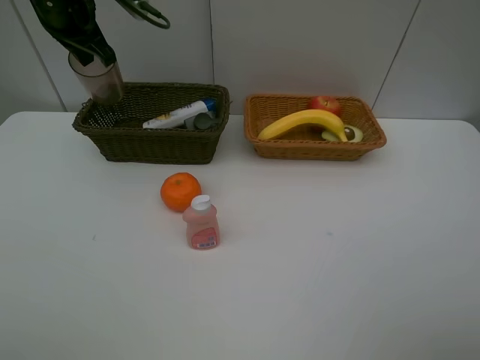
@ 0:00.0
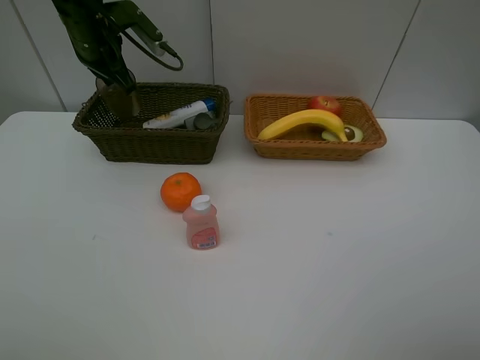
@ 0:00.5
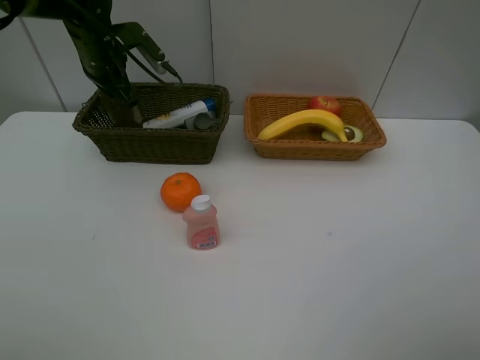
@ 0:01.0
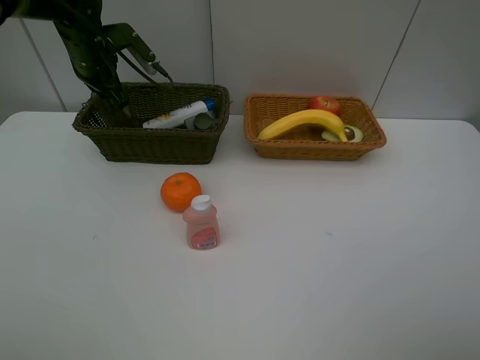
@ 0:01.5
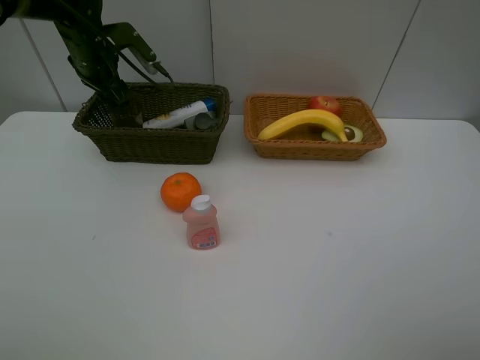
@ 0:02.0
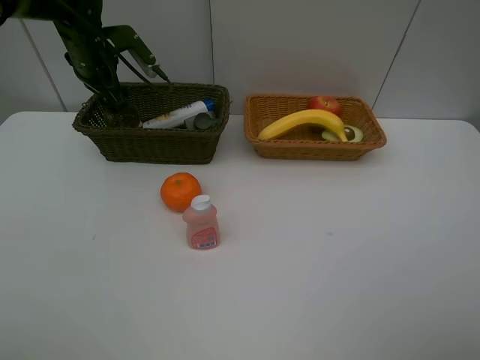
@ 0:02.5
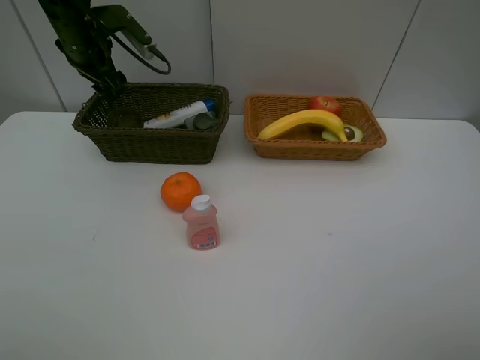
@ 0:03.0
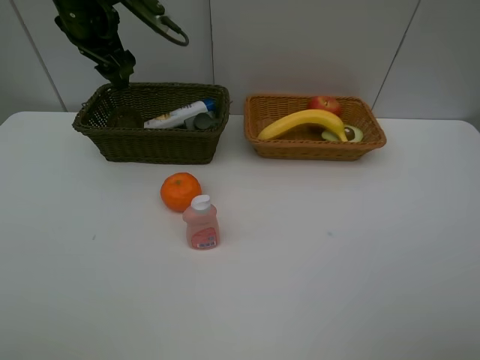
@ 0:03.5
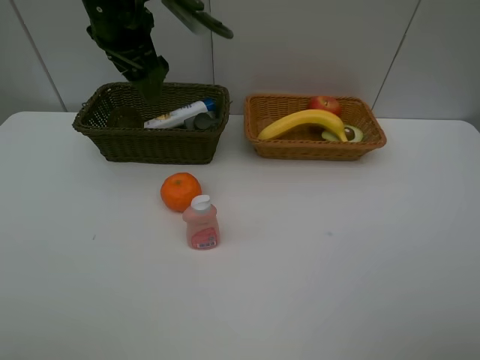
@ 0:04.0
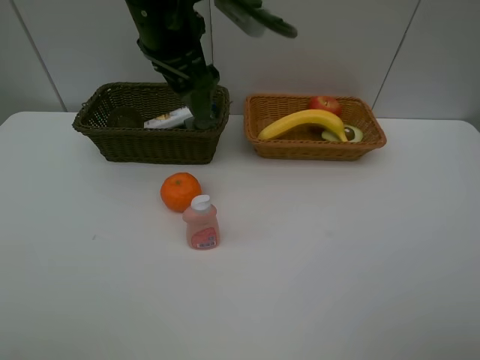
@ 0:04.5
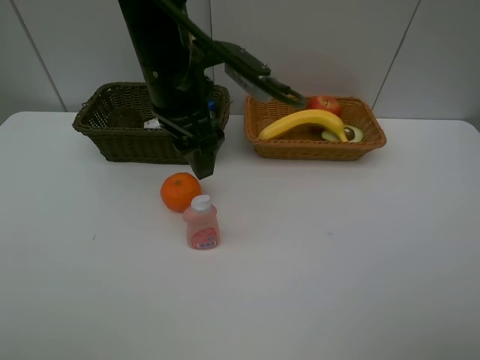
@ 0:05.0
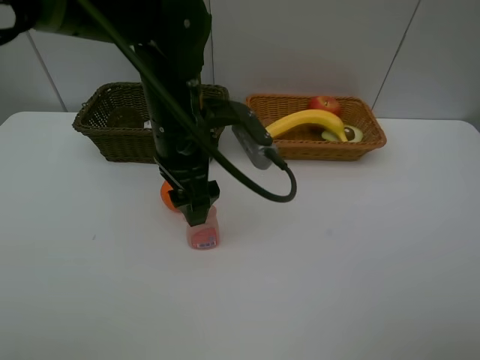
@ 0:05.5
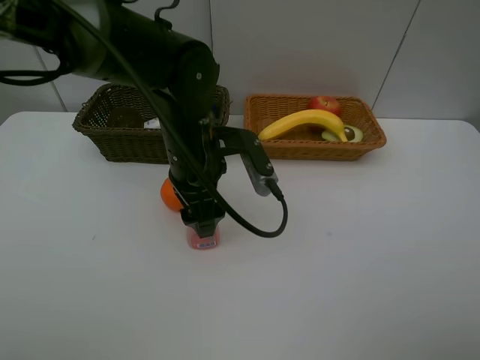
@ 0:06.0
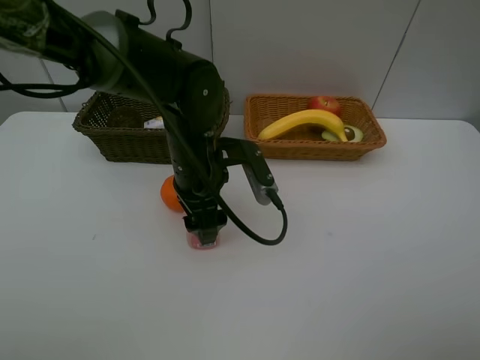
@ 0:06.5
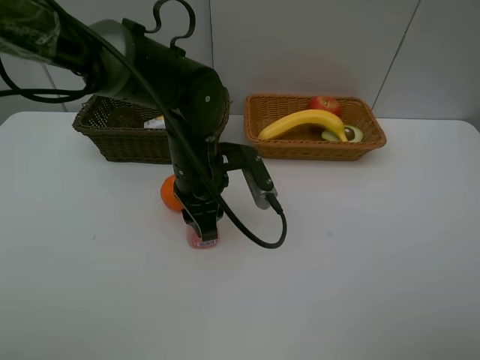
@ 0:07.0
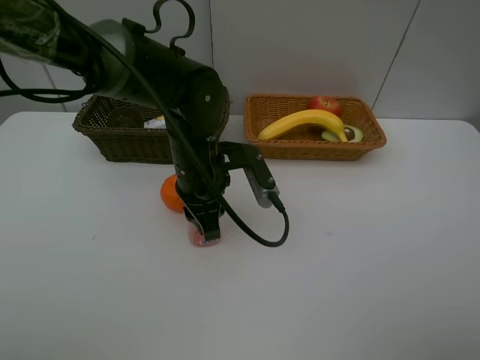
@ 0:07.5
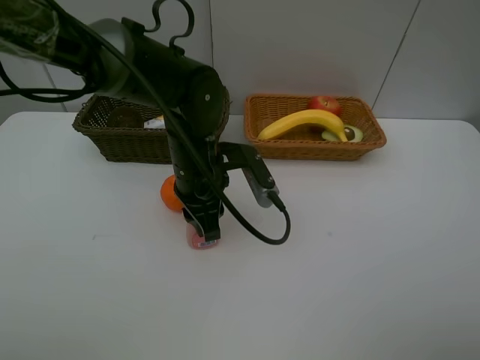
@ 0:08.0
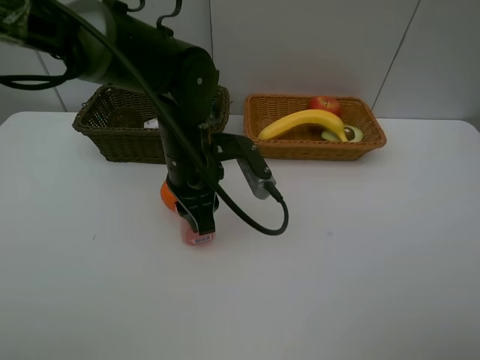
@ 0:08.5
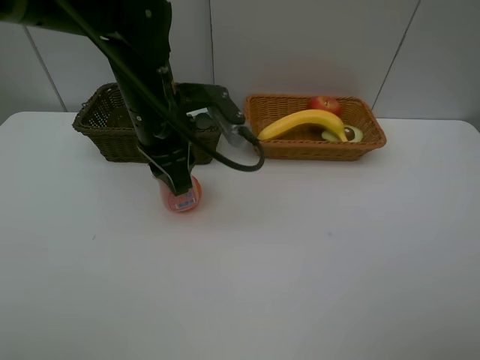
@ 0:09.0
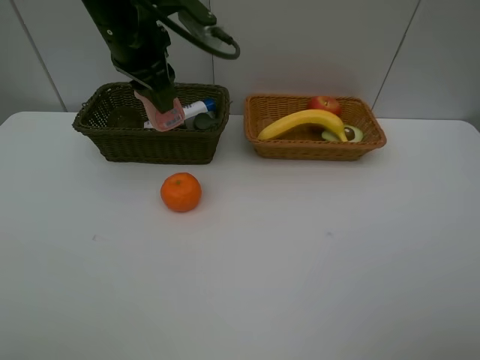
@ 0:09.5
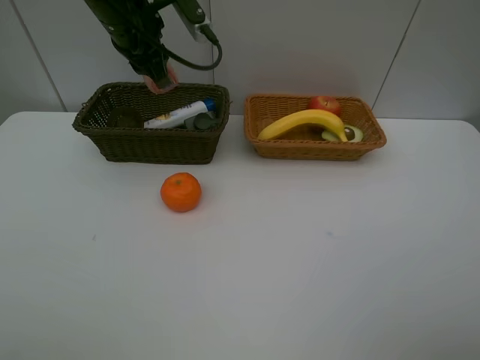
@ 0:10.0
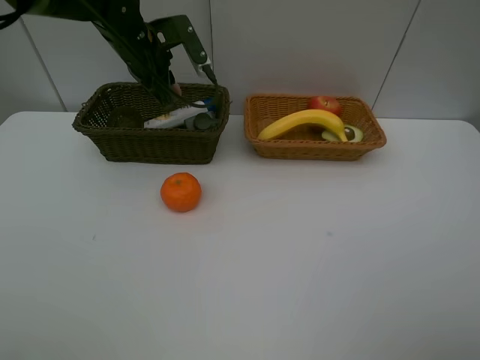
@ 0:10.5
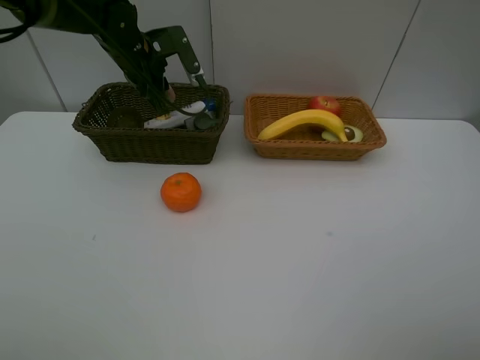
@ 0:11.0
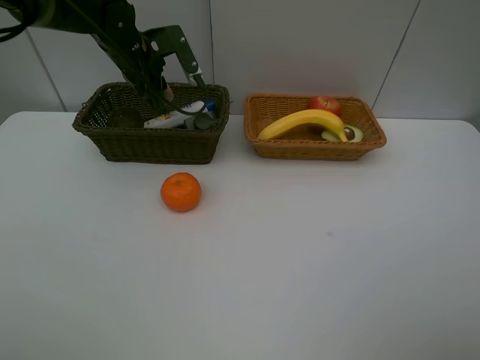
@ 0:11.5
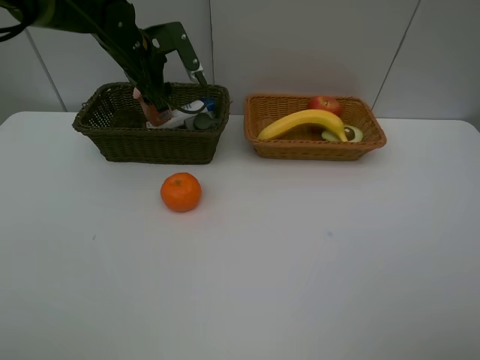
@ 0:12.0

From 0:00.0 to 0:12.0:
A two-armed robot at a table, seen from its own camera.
Task of the whole recording: Place multiple objects separately in different baskets.
Step, from 0:00.0 to 0:03.0: Place the red cup in the dark basket with left gripper.
Step, from 0:03.5 to 0:08.5: Pick up the laundry detergent with left gripper.
From 0:00.0 to 0:02.0: The left gripper is displaced downward by some 10 cm, and opens.
From 0:02.0 to 0:04.0: The left gripper is displaced backward, upward and to the right by about 20 cm.
From 0:04.0 to 0:06.0: The left gripper goes approximately 20 cm downward, backward and to the right.
From 0:06.0 to 0:08.0: The left gripper closes up.
From 0:08.0 to 0:10.0: The left gripper travels upward, forward and to the left by about 20 cm.
From 0:10.0 to 0:12.0: The left gripper goes roughly 10 cm downward and forward, and opens.

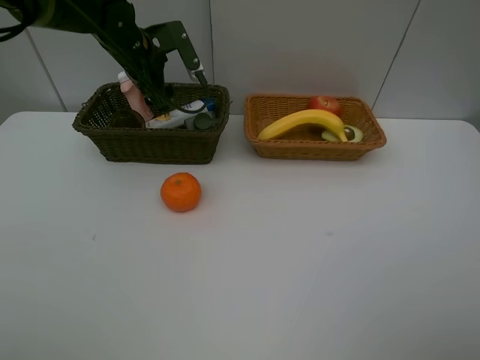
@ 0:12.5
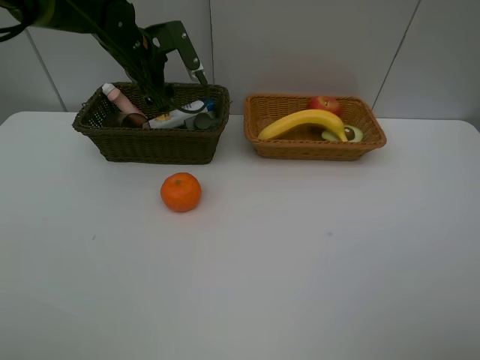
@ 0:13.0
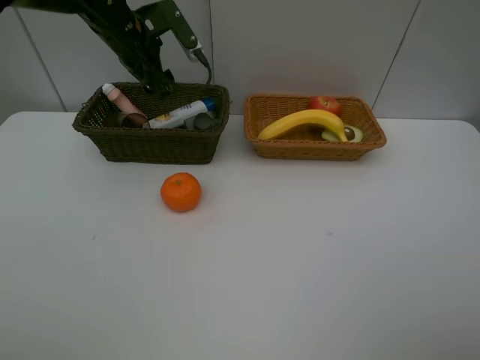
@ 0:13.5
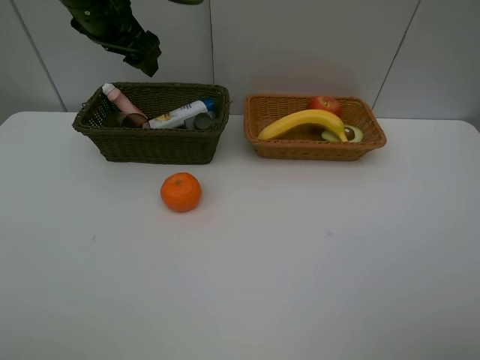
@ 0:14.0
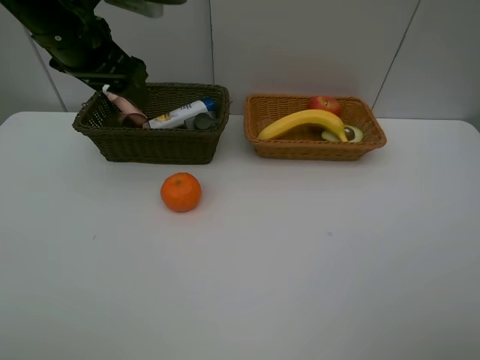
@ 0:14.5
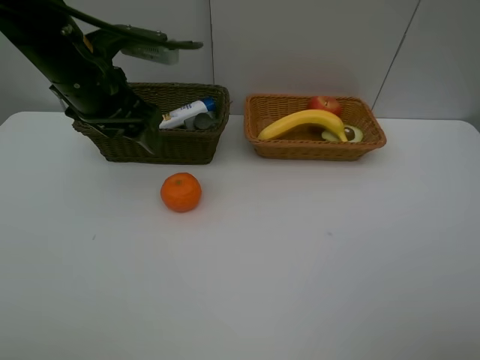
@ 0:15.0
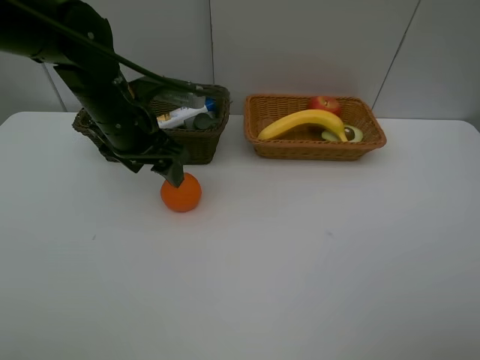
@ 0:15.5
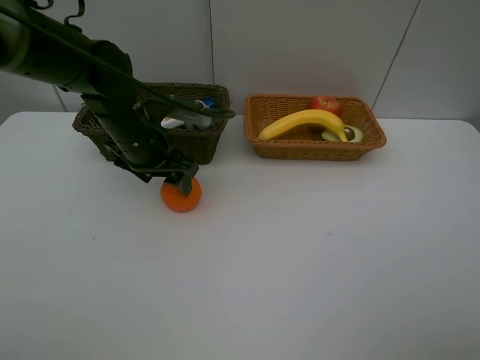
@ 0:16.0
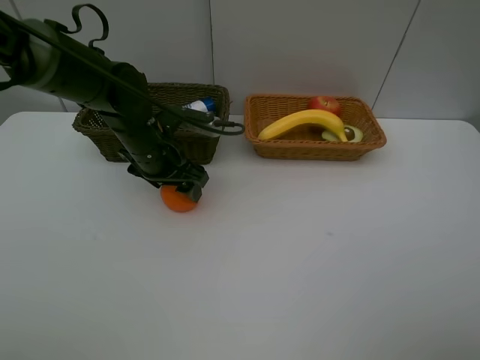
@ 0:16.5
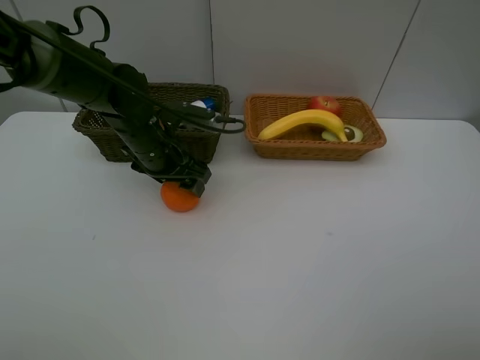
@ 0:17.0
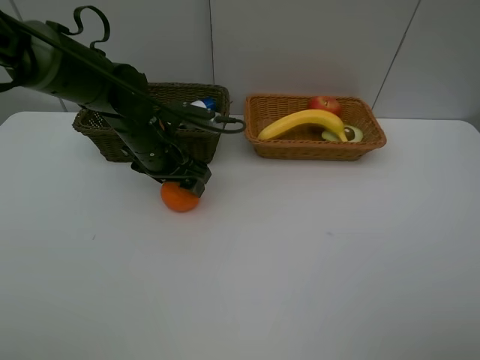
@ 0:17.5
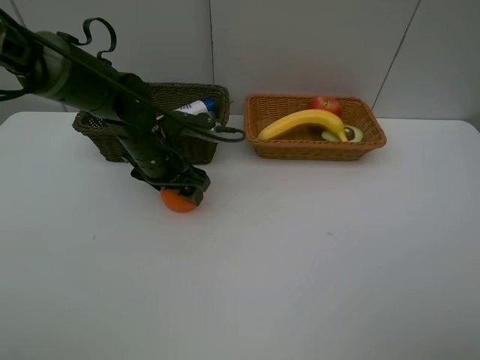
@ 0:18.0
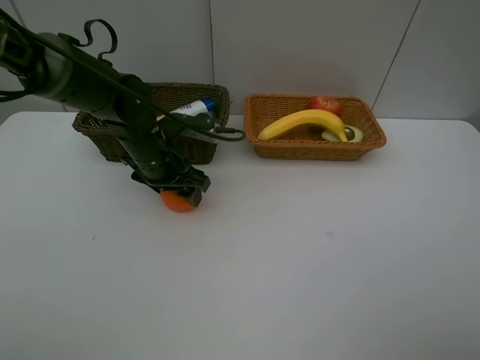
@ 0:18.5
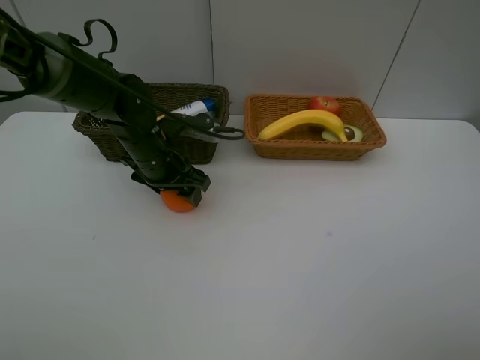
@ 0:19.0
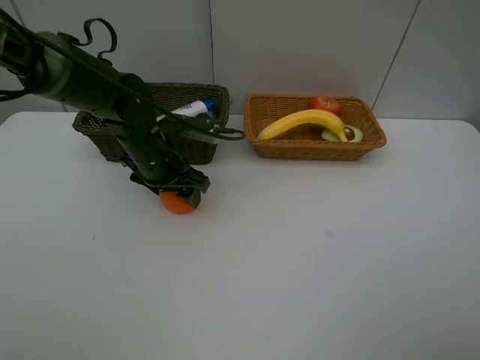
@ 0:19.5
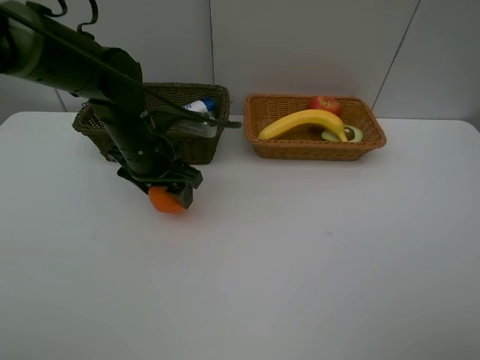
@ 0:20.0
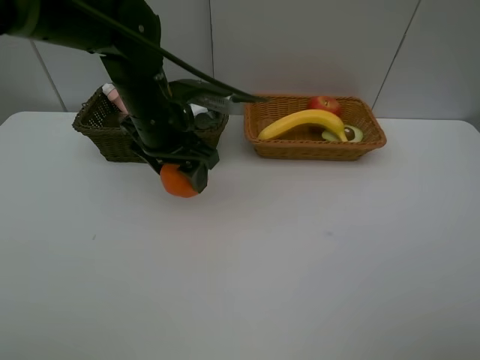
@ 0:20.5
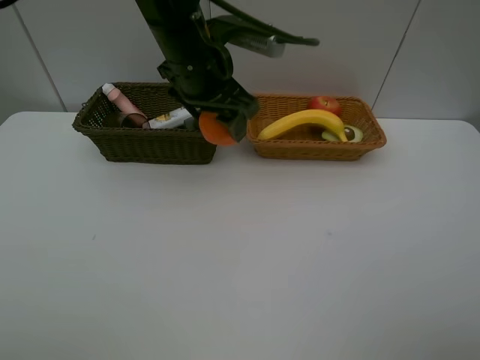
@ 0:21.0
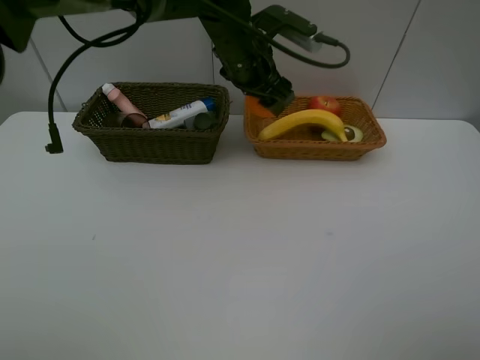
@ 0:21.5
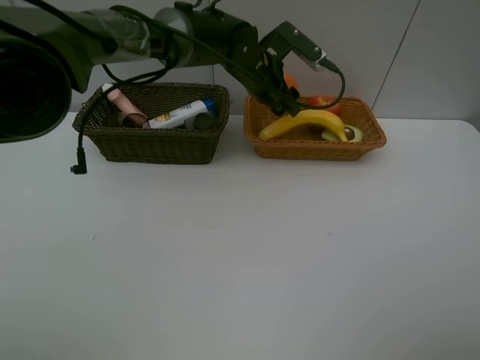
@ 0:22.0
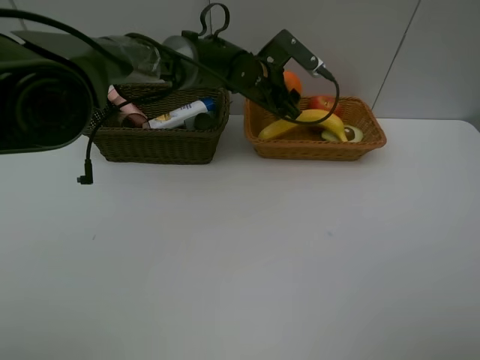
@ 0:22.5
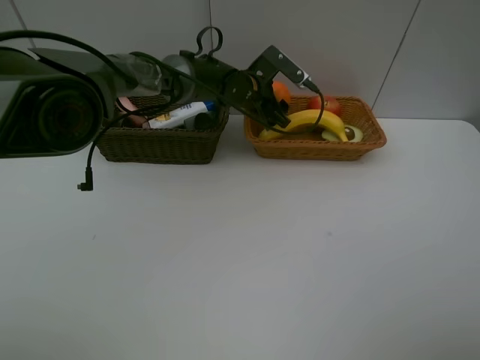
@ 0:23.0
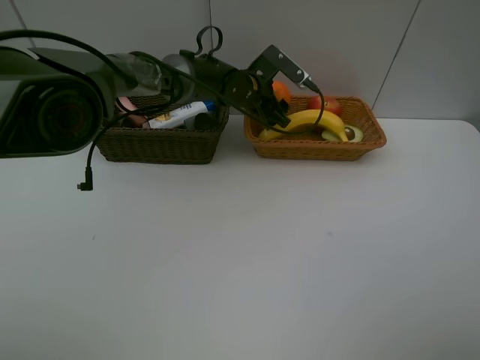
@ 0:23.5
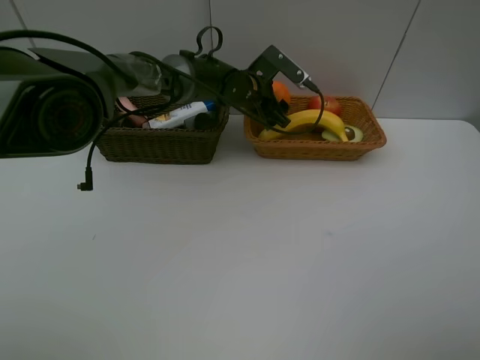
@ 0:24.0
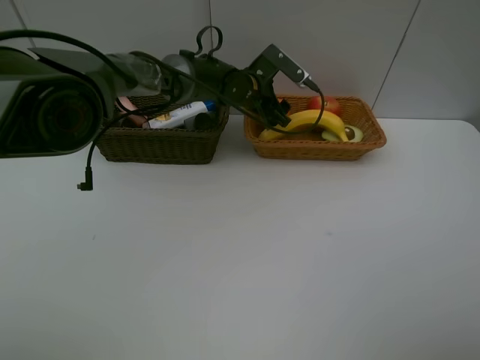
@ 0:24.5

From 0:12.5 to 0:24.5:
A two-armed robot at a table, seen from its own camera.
Task of the whole recording: Place multiple objects separately in different baskets.
Step, from 0:13.5 to 0:20.0: Pick up the orange with left gripper.
From 0:12.5 to 0:14.5: The left gripper moves backward and upward, approximately 15 cm.
From 0:14.5 to 0:16.5: The left gripper moves downward, roughly 15 cm.
From 0:16.5 to 0:18.5: The two grippers keep their place.
From 0:18.5 to 0:20.5: The left gripper is displaced upward by roughly 10 cm.
From 0:20.5 to 0:22.5: The left gripper heads forward and to the right, covering some 20 cm.
From 0:22.5 to 0:24.5: There are only small adjustments of the grippers.

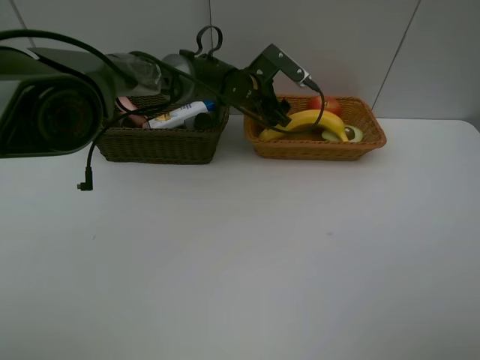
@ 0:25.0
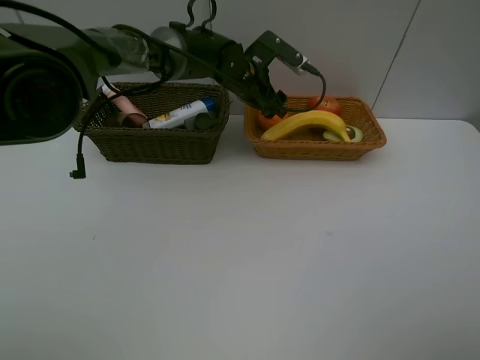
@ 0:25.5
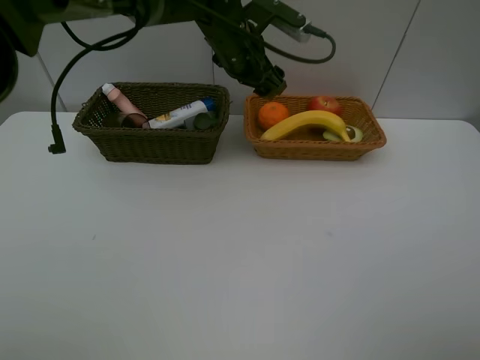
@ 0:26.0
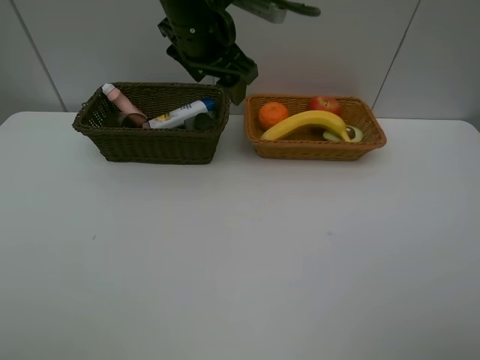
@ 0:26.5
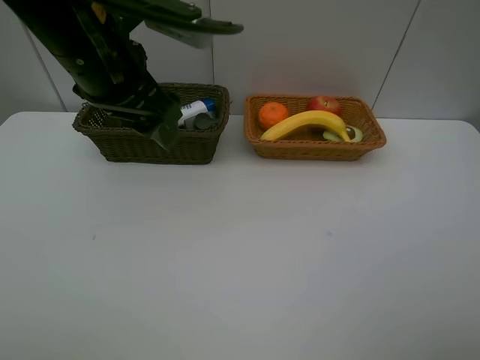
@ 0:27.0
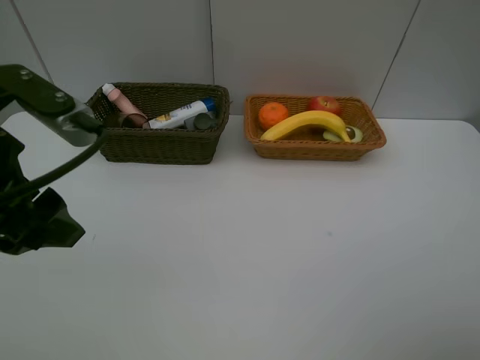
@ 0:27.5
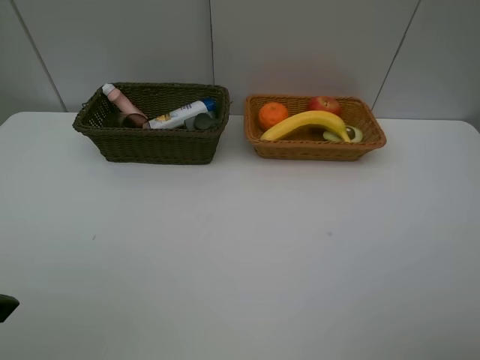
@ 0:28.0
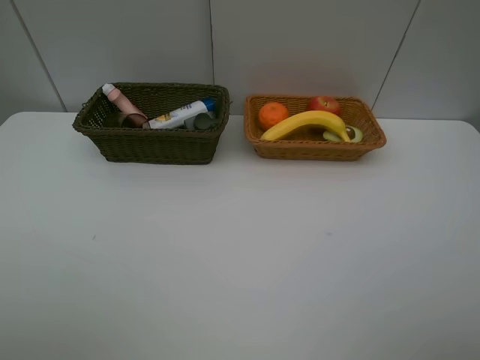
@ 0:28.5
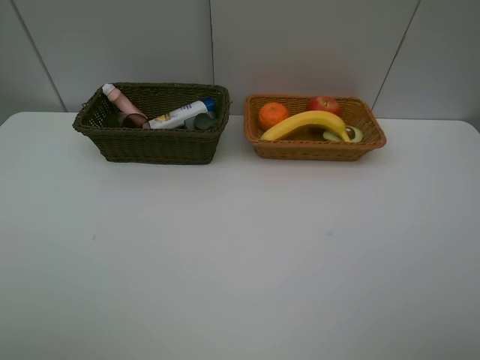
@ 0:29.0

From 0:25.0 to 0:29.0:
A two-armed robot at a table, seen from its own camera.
Task of the whole recording: Place multiple objects separately in different baskets.
From 0:25.0 to 0:27.0: The left gripper travels backward, upward and to the left by roughly 30 cm.
From 0:27.0 to 0:29.0: The left gripper travels backward and to the left by some 30 cm.
